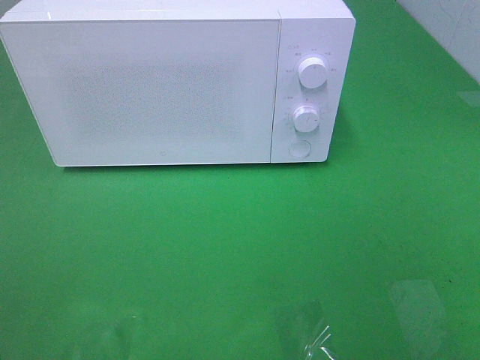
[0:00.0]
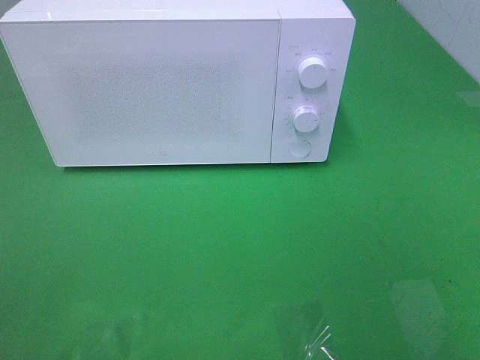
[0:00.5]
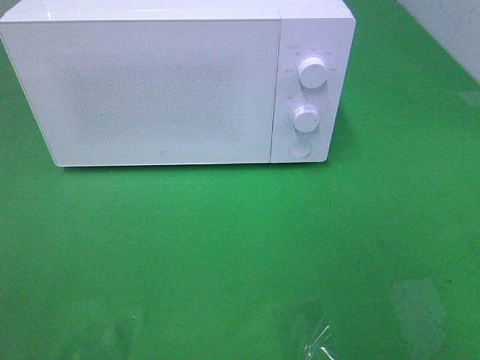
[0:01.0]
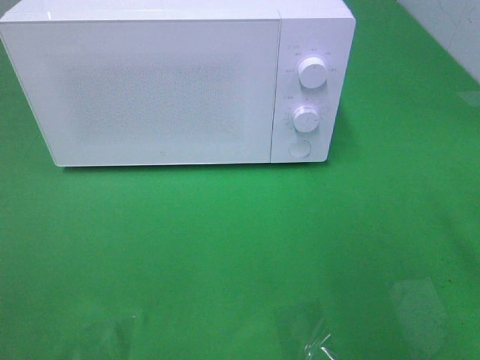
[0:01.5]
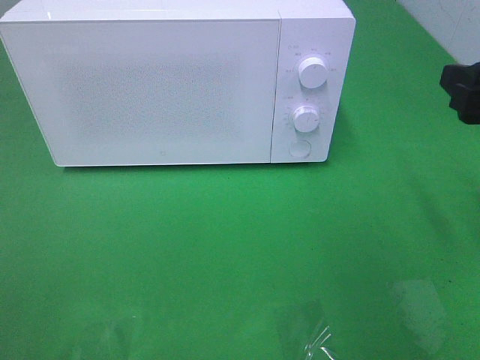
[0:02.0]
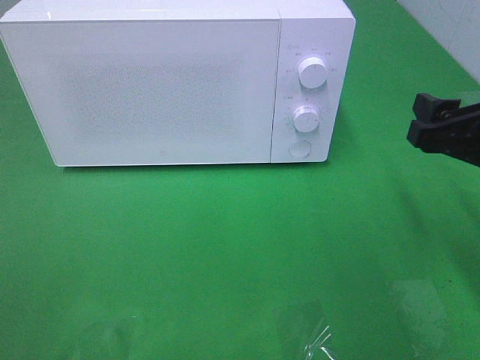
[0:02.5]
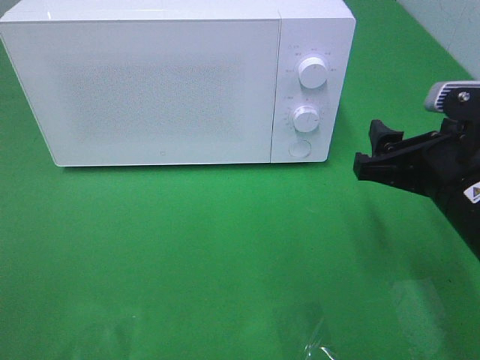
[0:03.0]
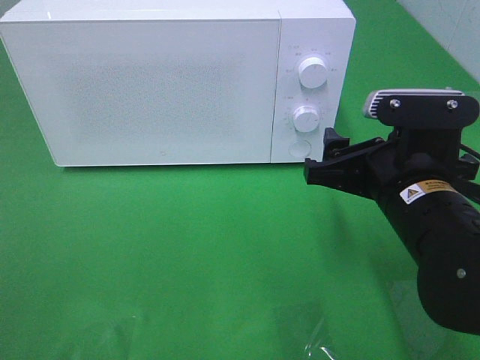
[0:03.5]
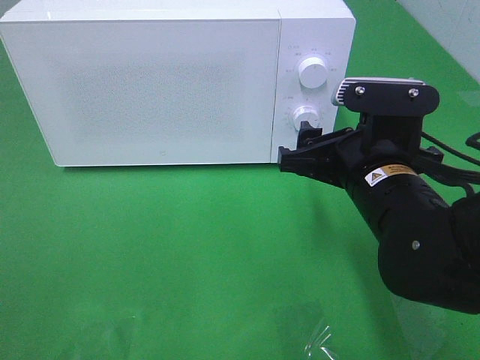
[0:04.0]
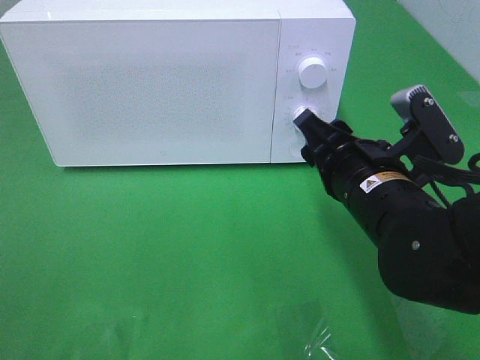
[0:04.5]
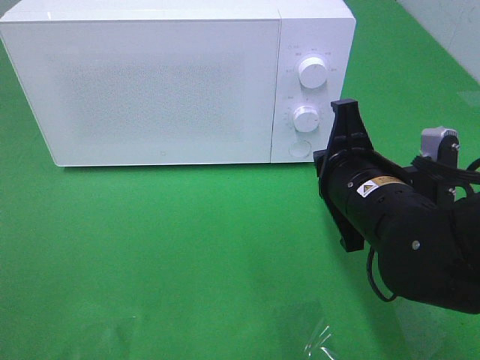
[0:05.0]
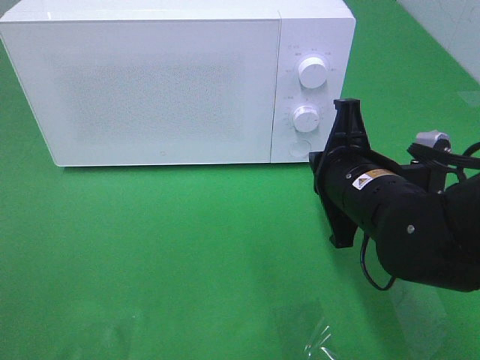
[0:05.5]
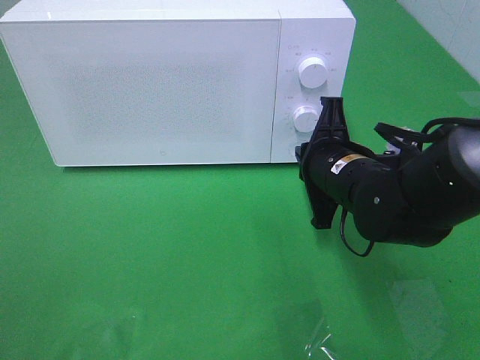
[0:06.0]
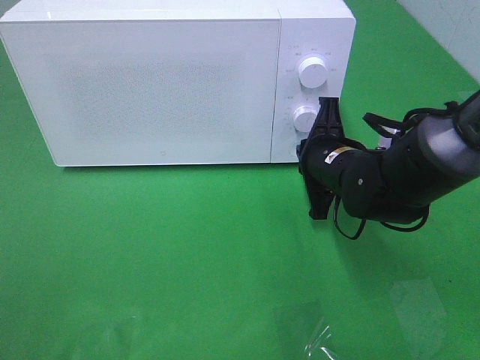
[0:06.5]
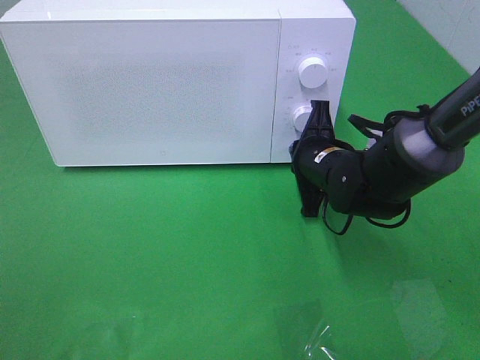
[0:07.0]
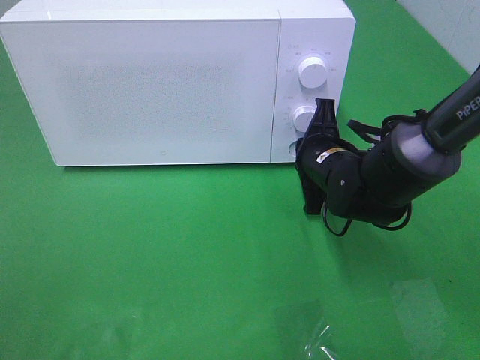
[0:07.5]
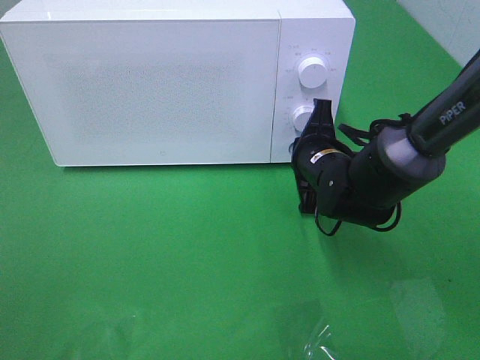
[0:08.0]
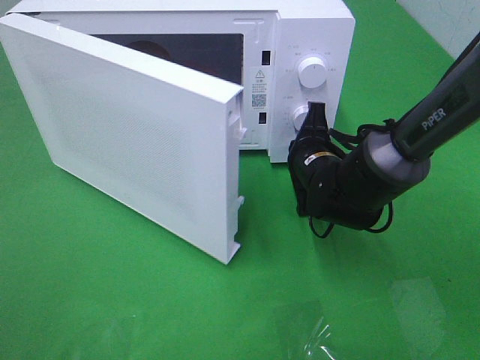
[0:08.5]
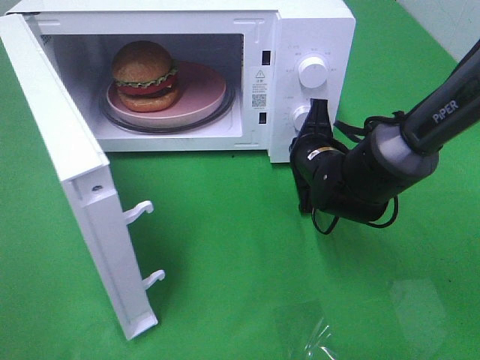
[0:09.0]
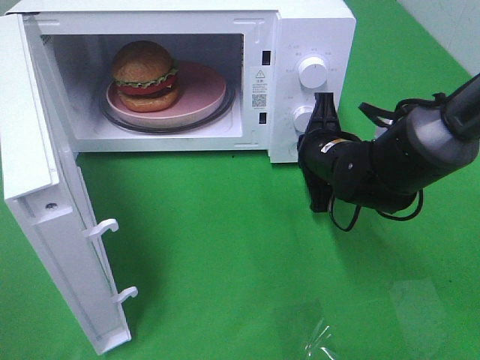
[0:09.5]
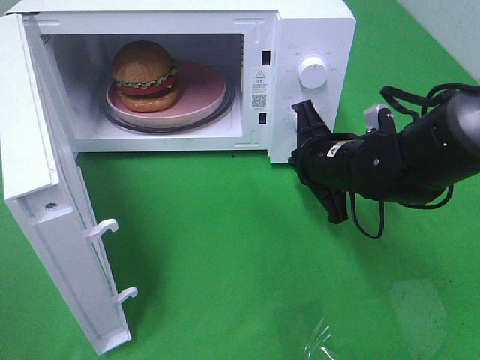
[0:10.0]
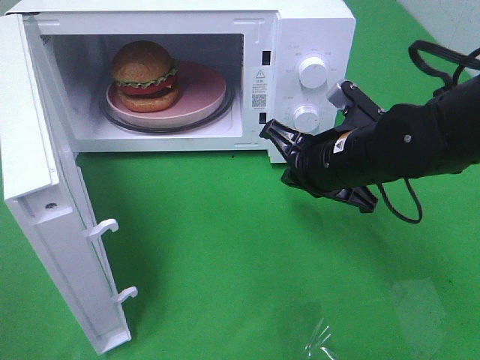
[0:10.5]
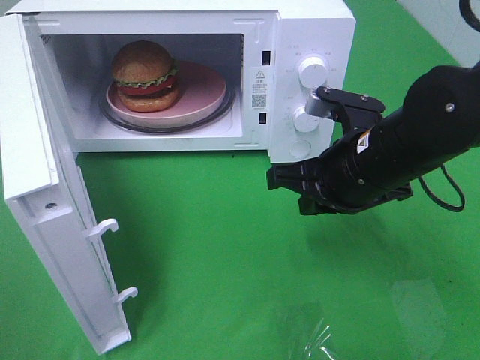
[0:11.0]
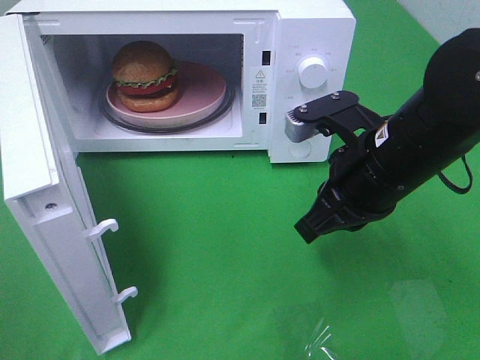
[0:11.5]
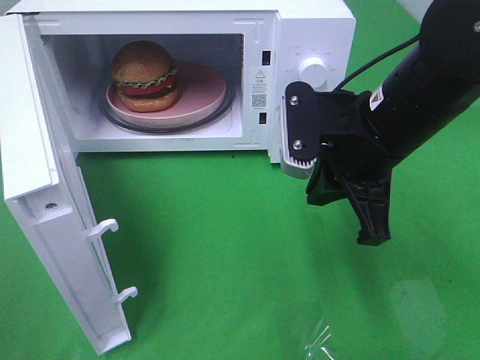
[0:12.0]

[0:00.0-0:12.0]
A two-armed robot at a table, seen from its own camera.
Task of the whole recording: Heat the burger.
Step, 0:00.0 to 0:09.5: Right hand: press the switch.
0:00.0 to 0:02.0: The right gripper shifts roughly 20 cm forward.
0:02.0 to 0:04.0: The right gripper heads to the left and downward, covering approximately 15 cm.
0:04.0 to 0:06.0: The right gripper travels forward by approximately 5 cm, and closes.
0:06.0 to 0:08.0: The right gripper heads forward, covering approximately 5 cm.
0:08.0 to 0:10.0: The right gripper moves about 5 cm.
0:10.0 to 0:12.0: The right gripper is displaced upward and backward by some 10 cm.

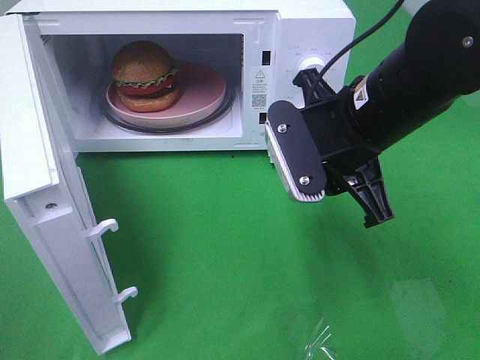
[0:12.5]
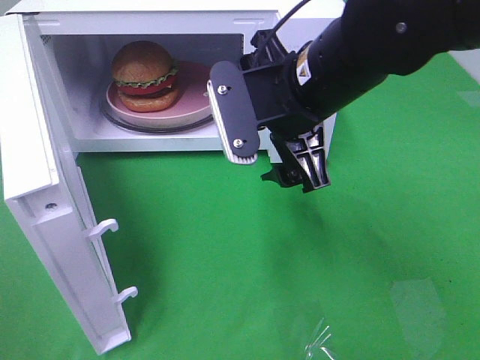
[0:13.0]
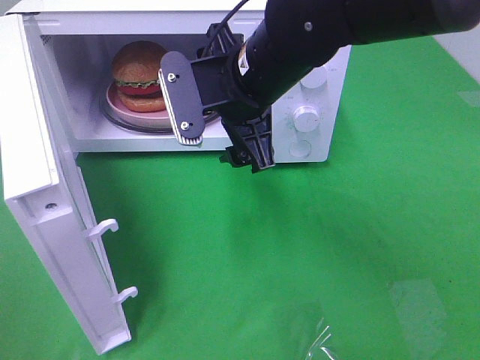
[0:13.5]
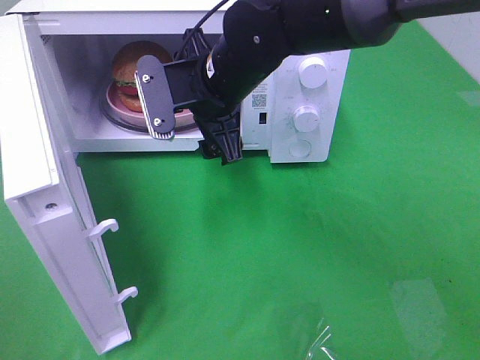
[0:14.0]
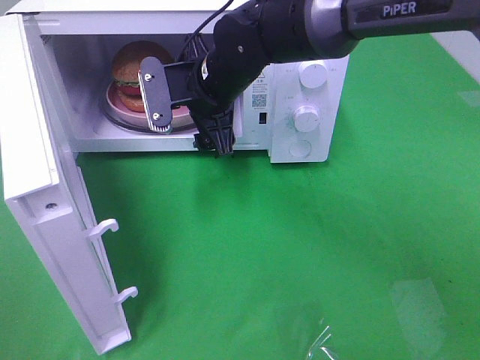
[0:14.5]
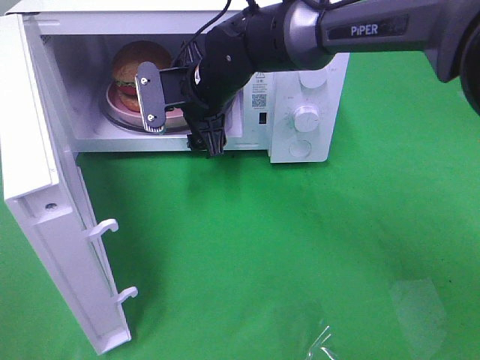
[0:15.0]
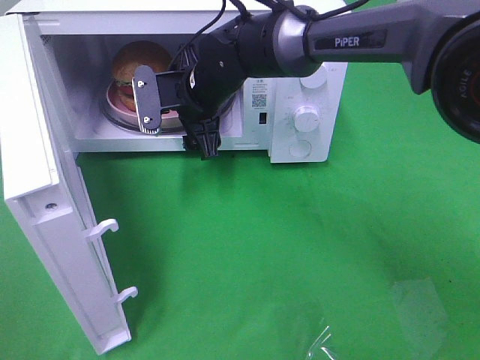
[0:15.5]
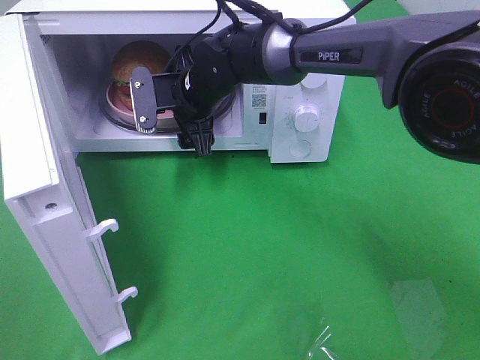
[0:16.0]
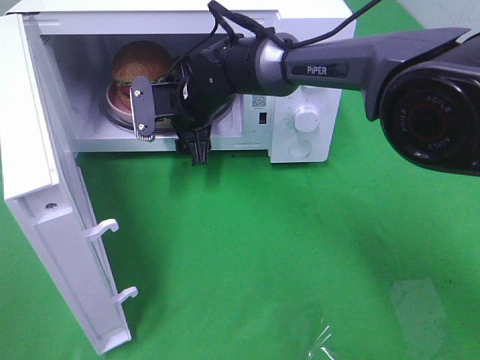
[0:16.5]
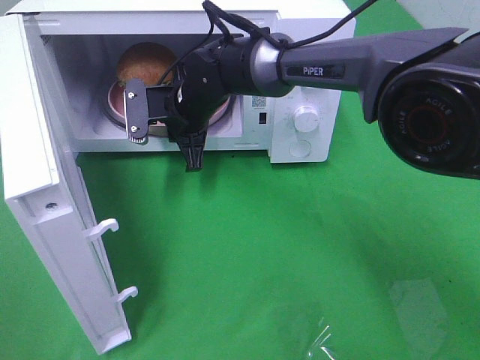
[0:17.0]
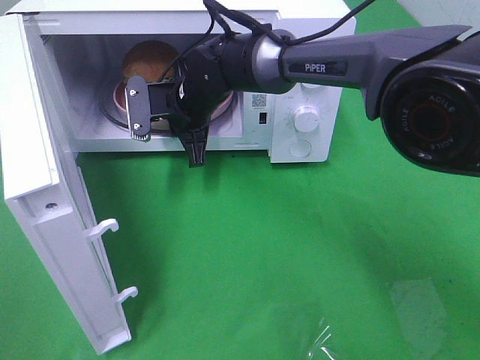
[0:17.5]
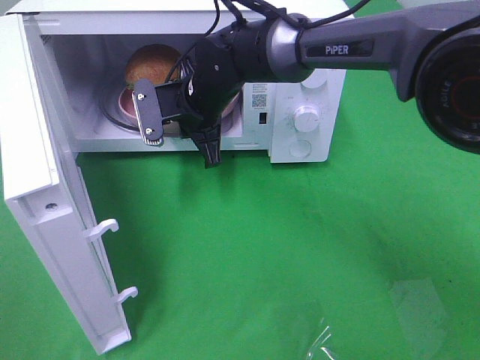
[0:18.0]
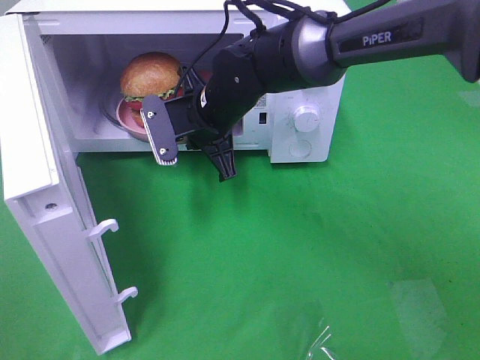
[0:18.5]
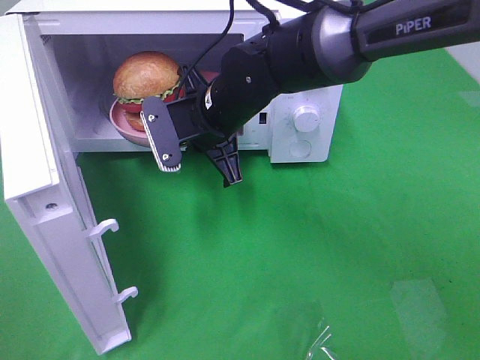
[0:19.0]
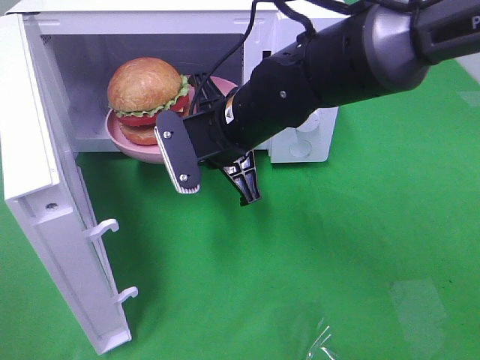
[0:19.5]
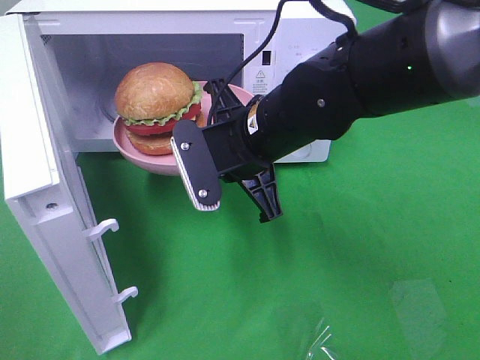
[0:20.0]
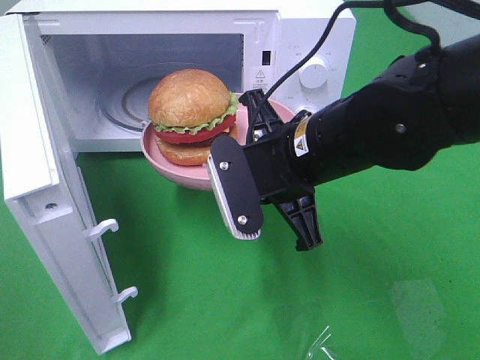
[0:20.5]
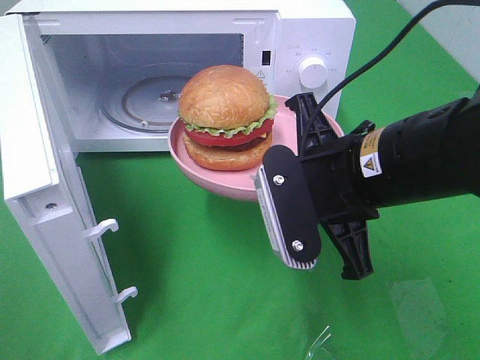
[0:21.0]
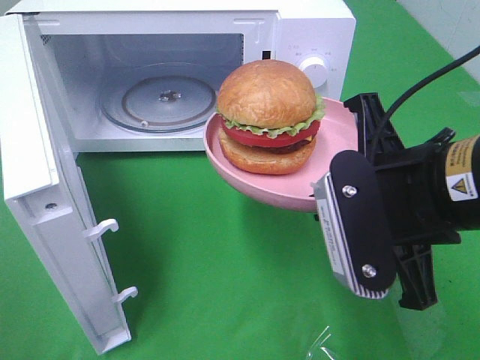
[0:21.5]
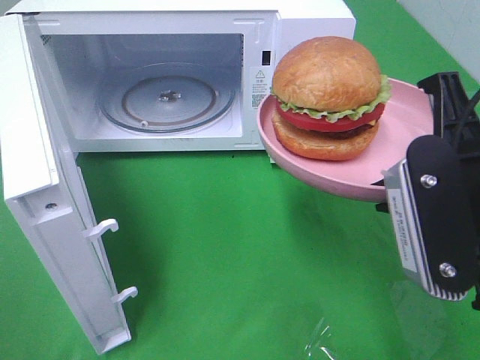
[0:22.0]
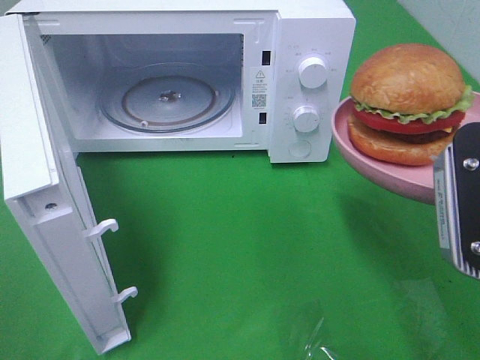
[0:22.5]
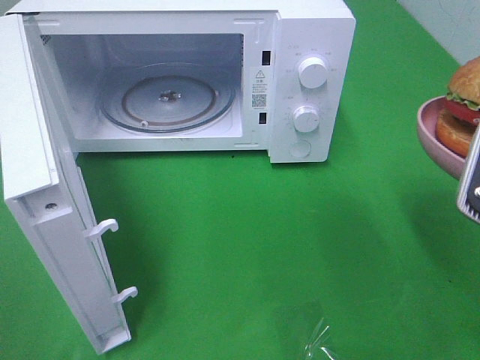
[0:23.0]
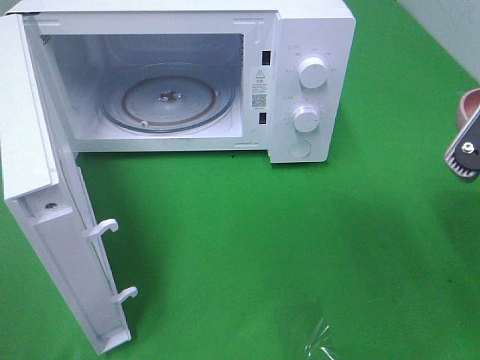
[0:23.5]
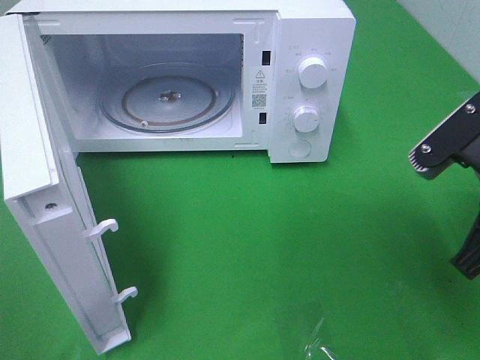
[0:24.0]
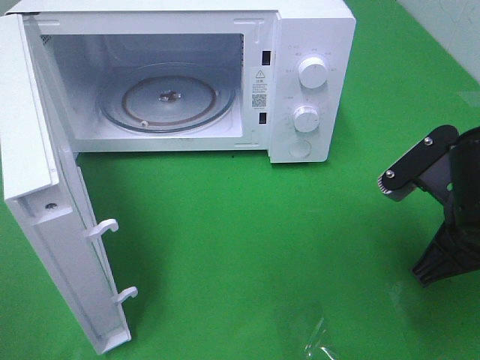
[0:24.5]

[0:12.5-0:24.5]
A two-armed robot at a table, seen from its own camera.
Task of the whole recording: Heat the burger.
Step, 0:12.5 to 0:17.0: Right hand: grab the plate with the hamburger.
0:12.5 to 0:14.5: The right gripper travels to the left and forward by roughly 20 cm, and opens its fingers.
0:14.5 to 0:16.5: The right gripper moves downward, some 5 cm.
0:16.5 to 0:18.5: The right gripper heads backward, covering approximately 5 cm, and closes up.
0:18.5 to 0:20.5: The right gripper goes approximately 15 cm backward and to the right.
0:20.5 to 0:22.5: The right gripper travels to the right, backward and upward by roughly 20 cm.
0:22.5 to 0:24.5: The right gripper is displaced downward and forward by approximately 10 cm.

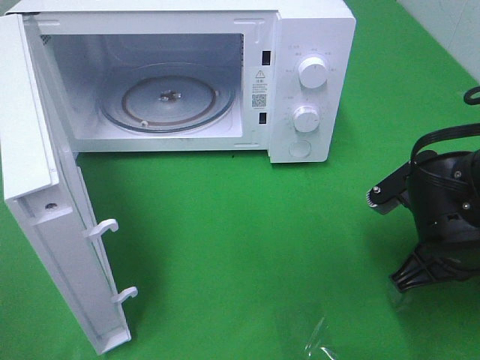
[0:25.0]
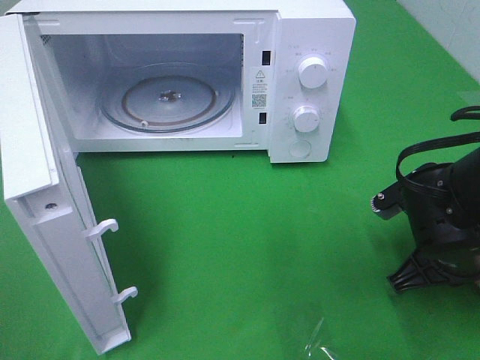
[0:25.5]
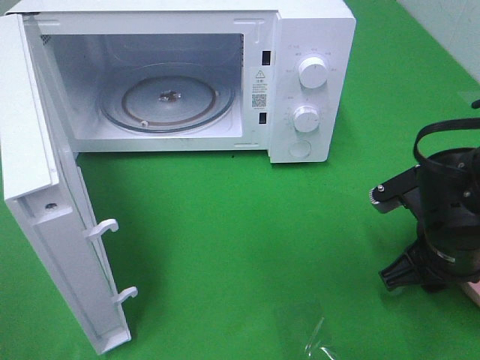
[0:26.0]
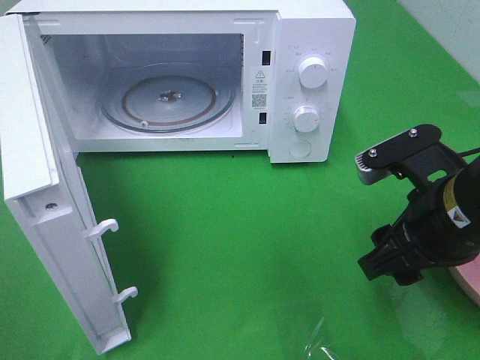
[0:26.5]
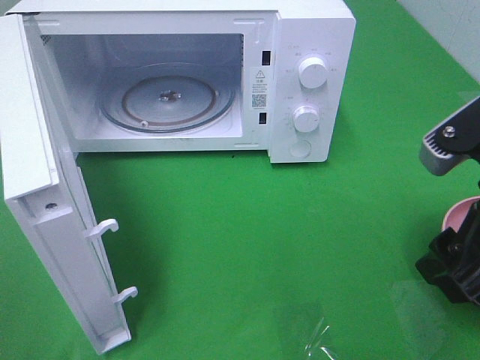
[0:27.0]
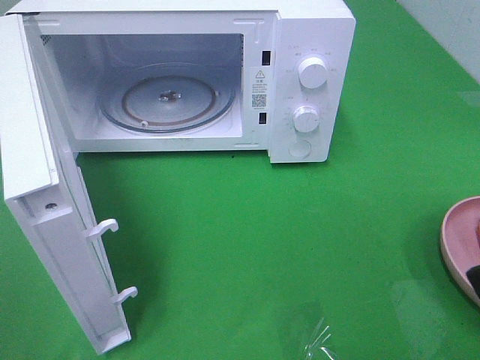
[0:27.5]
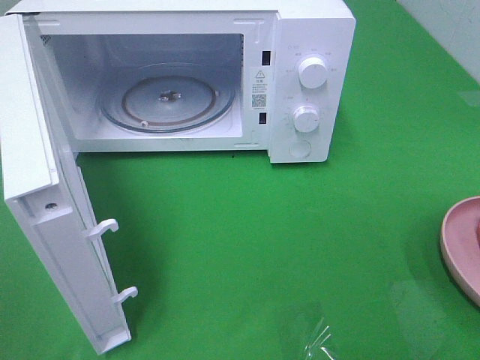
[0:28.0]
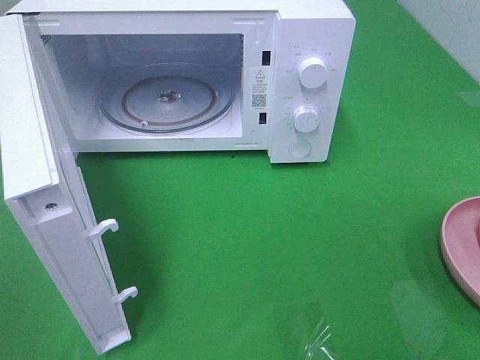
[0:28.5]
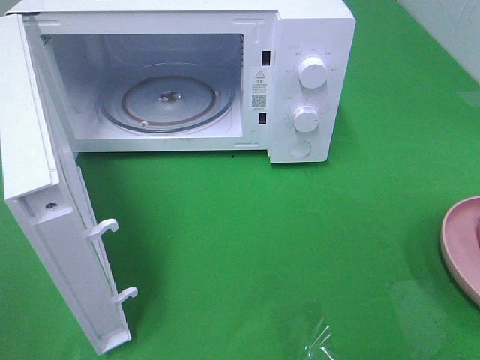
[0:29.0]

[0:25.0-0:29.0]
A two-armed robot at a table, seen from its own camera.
Task of the whole recording: Heat the burger.
0:25.0 to 0:27.0: The right gripper goes about 15 cm upward and backward, and opens its fingers.
0:27.0 to 0:29.0: The right gripper travels backward and to the right by roughly 15 cm.
